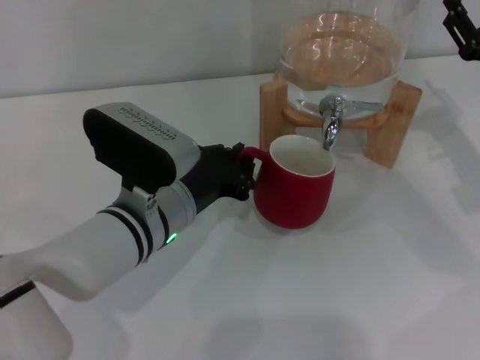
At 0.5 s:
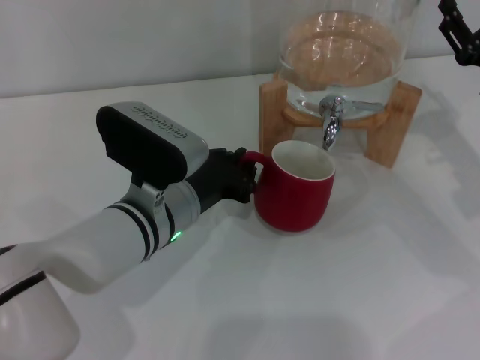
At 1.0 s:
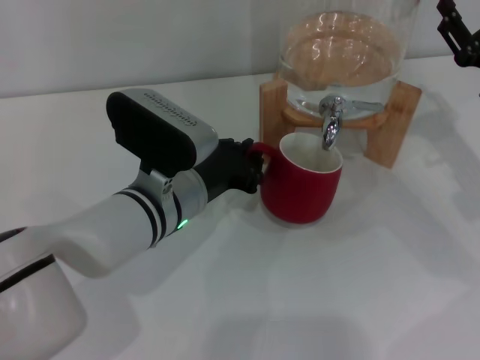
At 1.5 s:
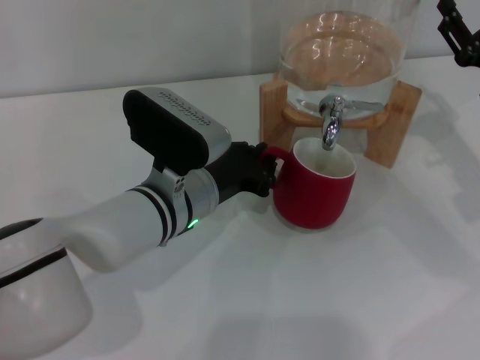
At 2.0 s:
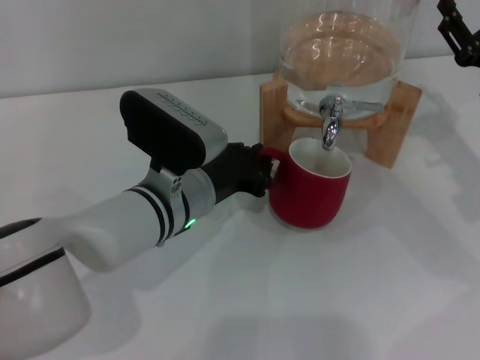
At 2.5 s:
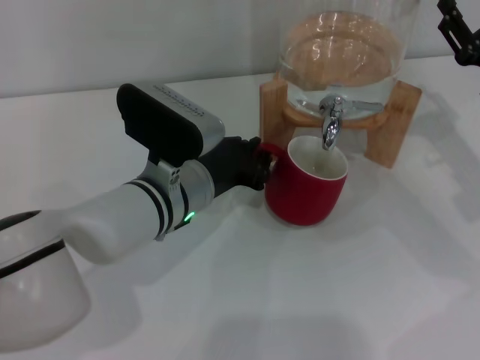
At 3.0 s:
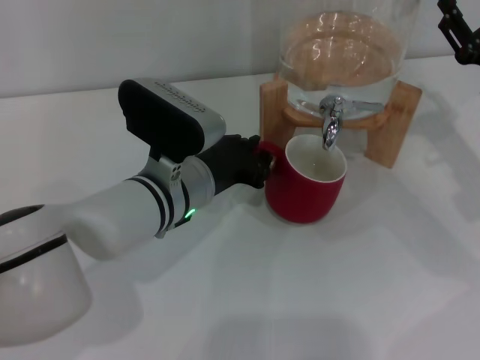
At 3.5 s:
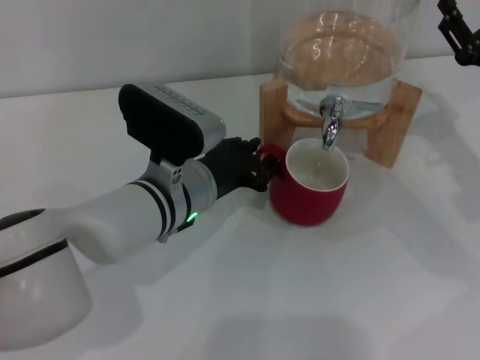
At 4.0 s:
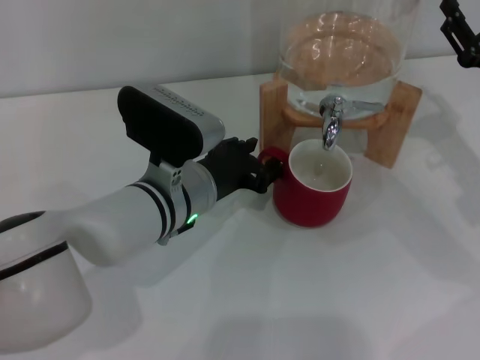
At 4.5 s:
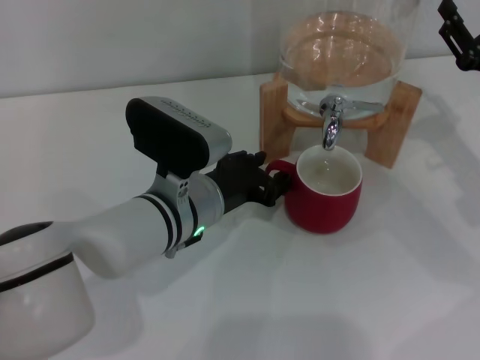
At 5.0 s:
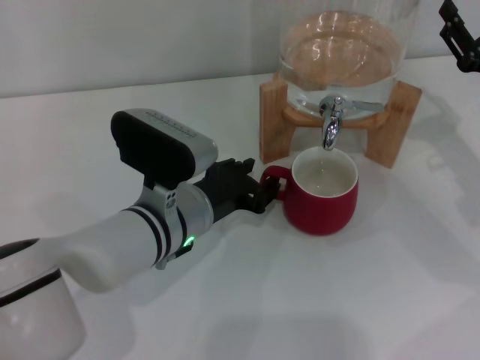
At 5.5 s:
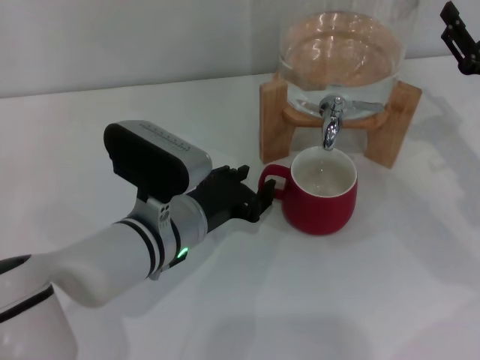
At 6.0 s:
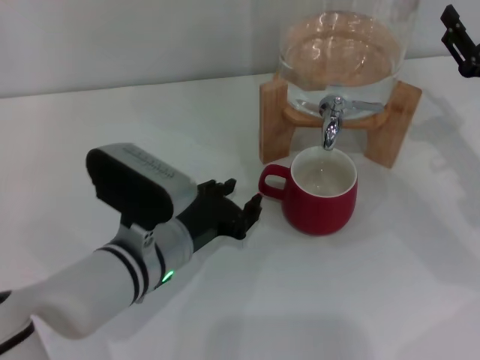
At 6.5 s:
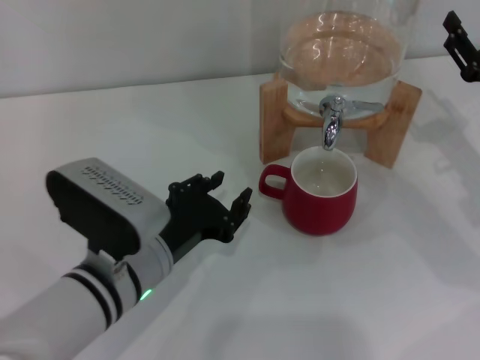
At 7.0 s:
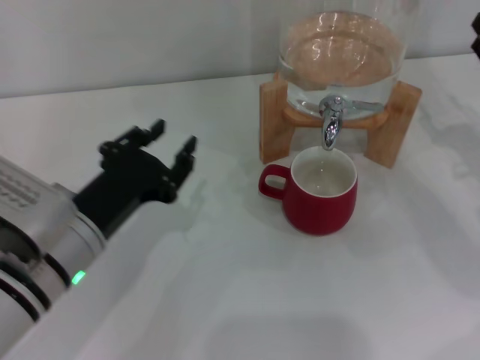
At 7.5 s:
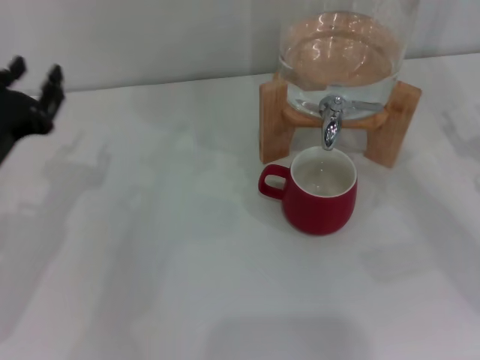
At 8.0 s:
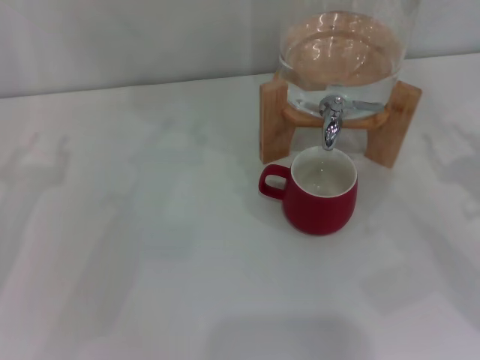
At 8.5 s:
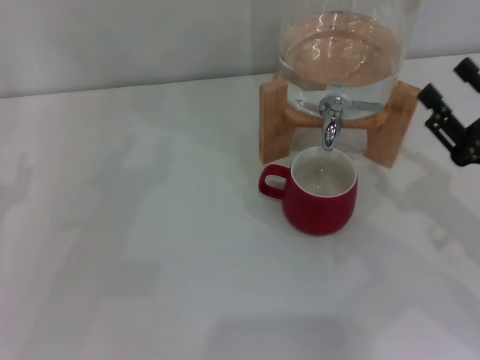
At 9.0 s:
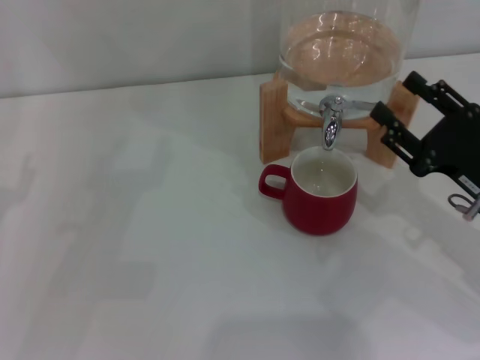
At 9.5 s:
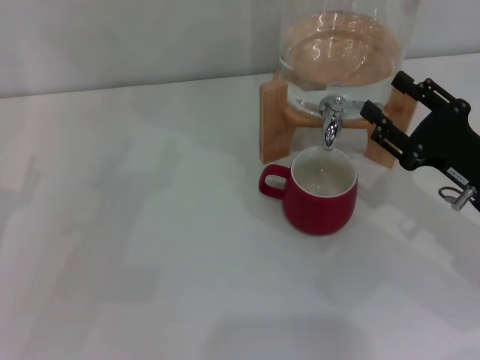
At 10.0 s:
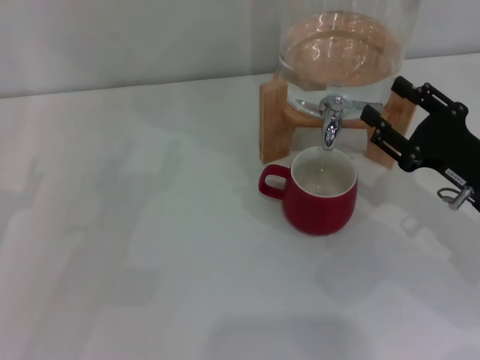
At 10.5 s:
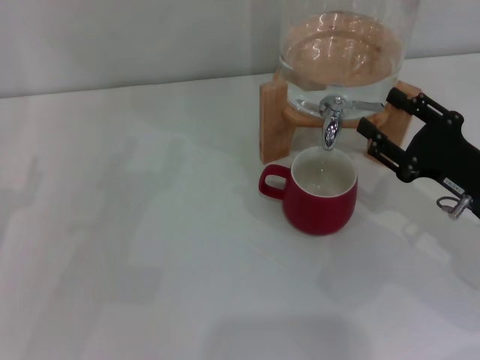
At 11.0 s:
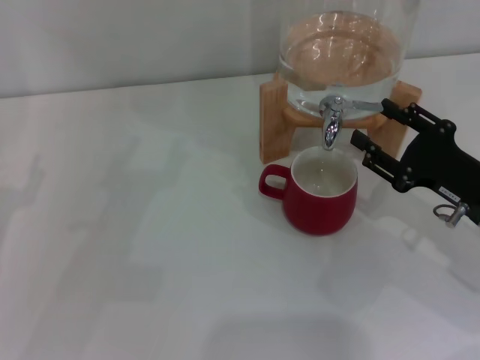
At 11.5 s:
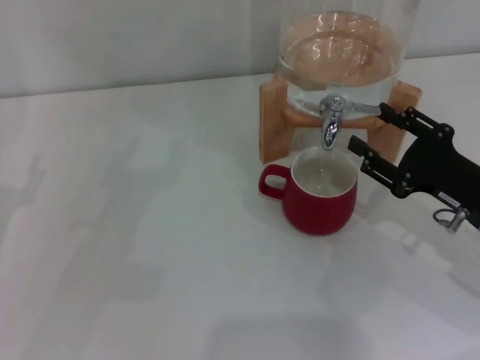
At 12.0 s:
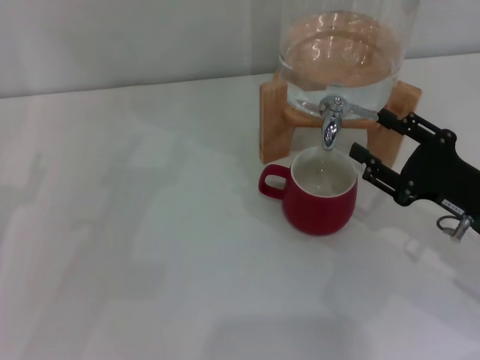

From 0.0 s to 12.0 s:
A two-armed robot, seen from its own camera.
Task of the whole recording: the left gripper pick up the red cup and place it horizontally under the faucet, the right gripper turn on the faucet to fill the cup, and then turn off the faucet.
Step, from 0.0 s to 6.5 s: Move the cup beneath the water dispenser nozzle with the left gripper.
From 0.0 s to 2.0 s: There are only small adjustments of the grippers.
From 2.0 s to 4.0 s: The left gripper opens its fingers.
From 4.0 s to 6.0 s: The left gripper shifts by some 5 cm.
From 6.0 s to 8.0 s: The left gripper travels to the left by about 20 cm, while the right gripper goes about 5 cm backward.
From 8.0 s to 10.0 s: The right gripper shifts approximately 5 cm to the left.
From 10.0 s to 12.0 s: The grippers make only small movements.

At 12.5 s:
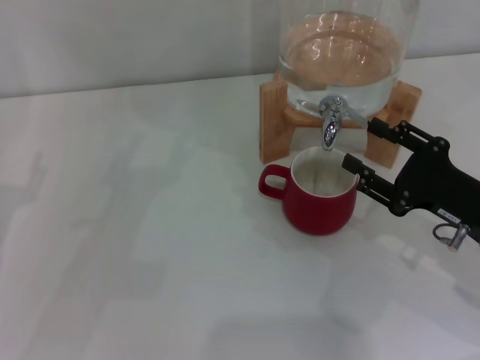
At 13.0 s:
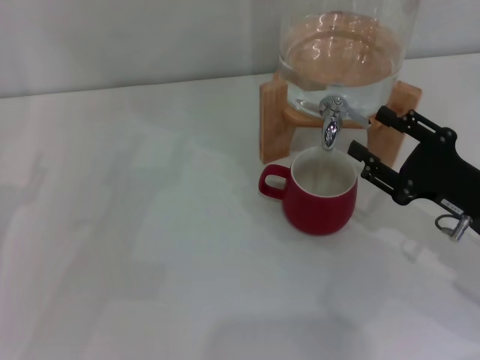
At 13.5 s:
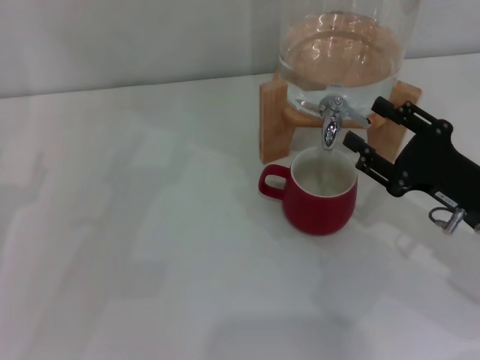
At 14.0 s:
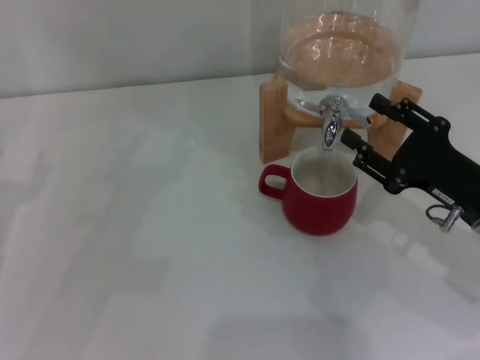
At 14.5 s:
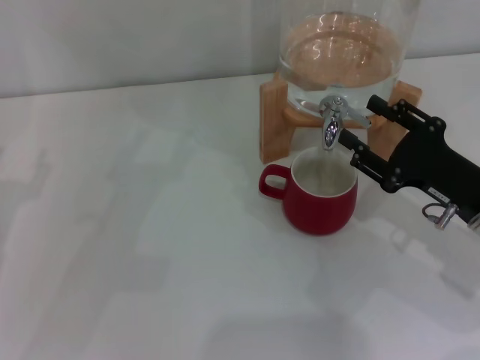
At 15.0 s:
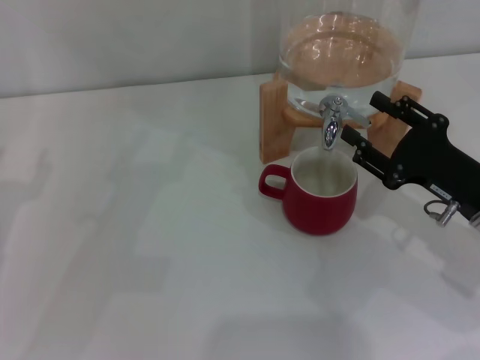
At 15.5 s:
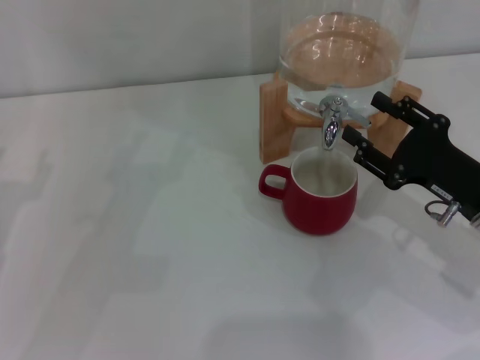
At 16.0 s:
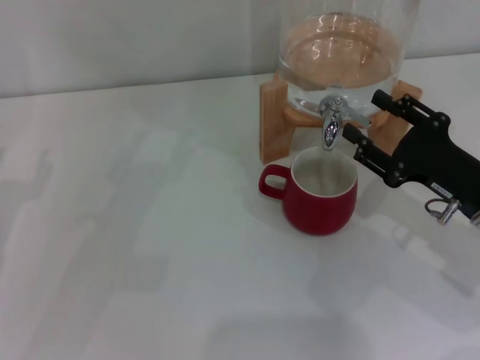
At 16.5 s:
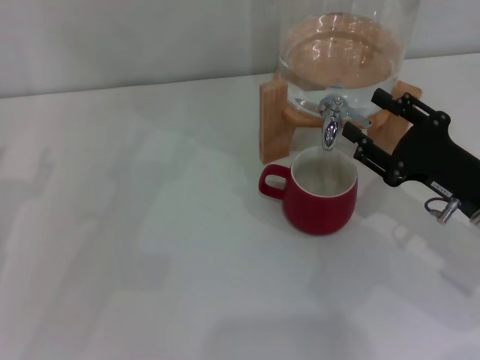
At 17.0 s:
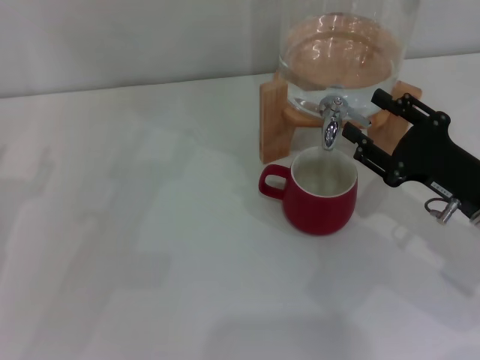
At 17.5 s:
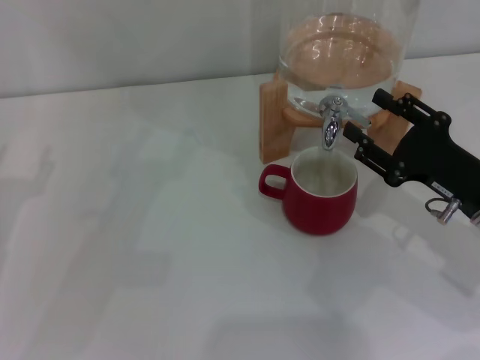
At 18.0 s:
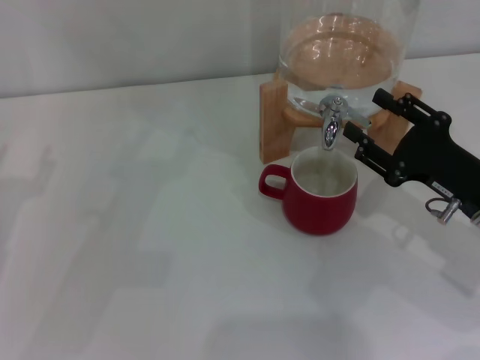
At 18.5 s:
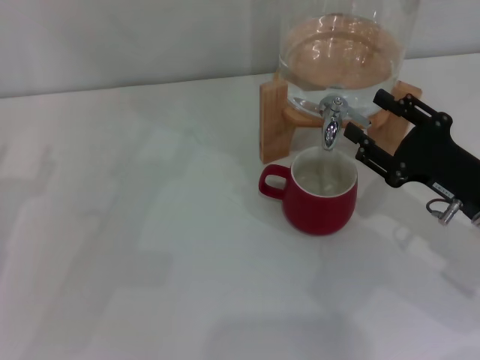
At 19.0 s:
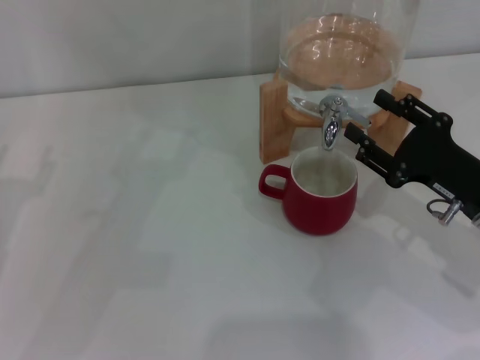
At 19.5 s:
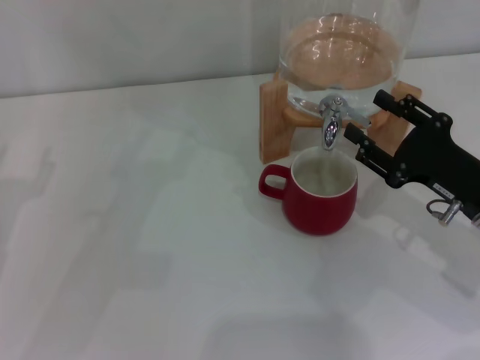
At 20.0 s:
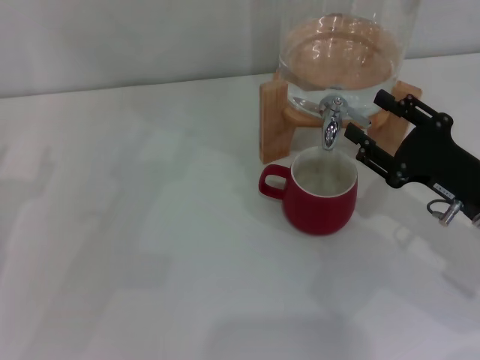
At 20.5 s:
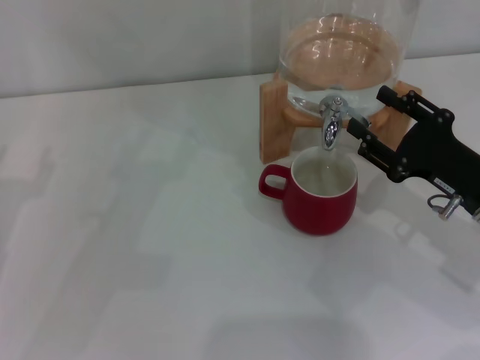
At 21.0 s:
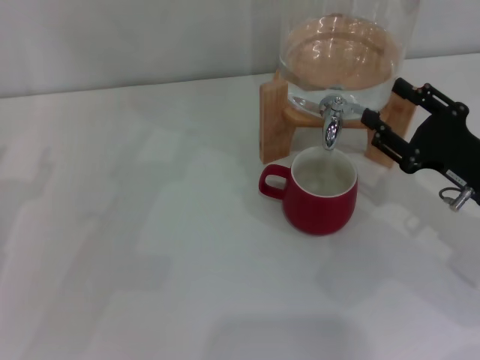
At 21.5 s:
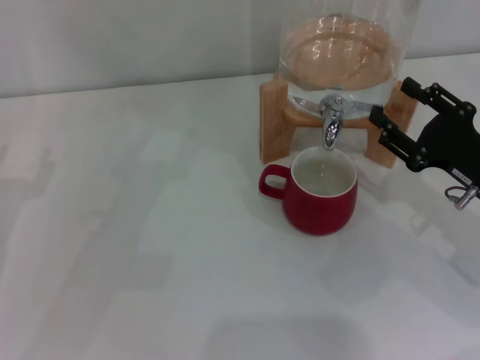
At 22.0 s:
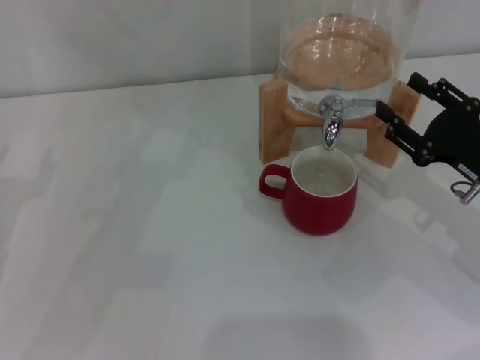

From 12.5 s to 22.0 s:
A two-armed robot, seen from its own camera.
Task of the whole recording: the left gripper pick up the red cup and place it horizontally under the faucet, the right gripper turn on the faucet to fill the cup, and then turn off the faucet.
Step, from 12.5 s to 20.0 s: Open the dispenser valve and fill the cup with water with the right gripper.
From 12.5 s to 14.5 s: There are only small adjustments of the grippers.
From 14.5 s to 20.0 s: The two grippers keep their place.
From 20.0 s to 22.0 s: The grippers stay close to where they were, moving slightly.

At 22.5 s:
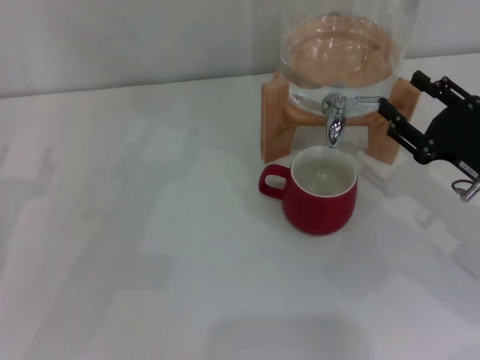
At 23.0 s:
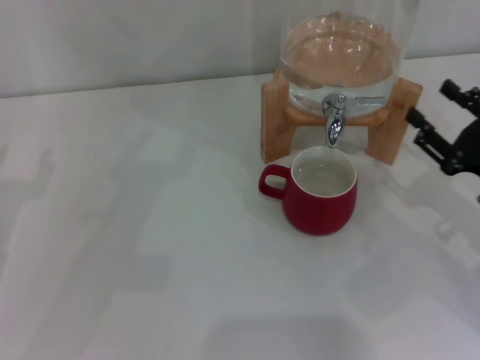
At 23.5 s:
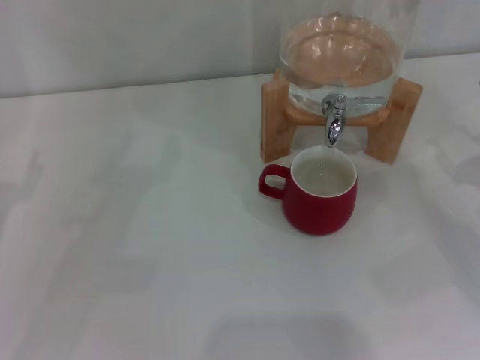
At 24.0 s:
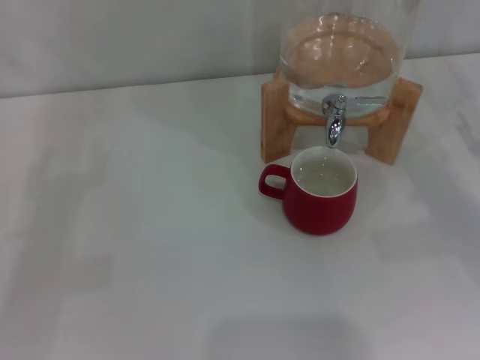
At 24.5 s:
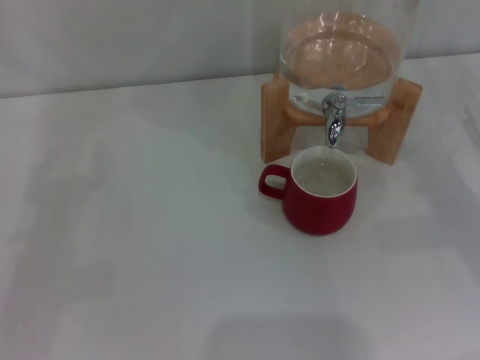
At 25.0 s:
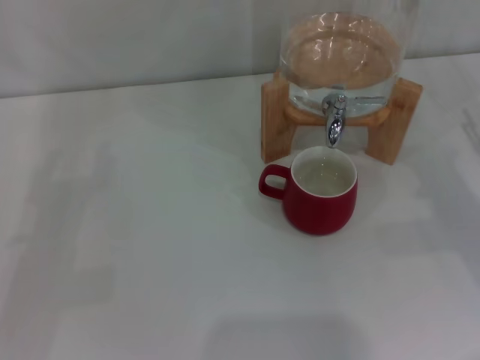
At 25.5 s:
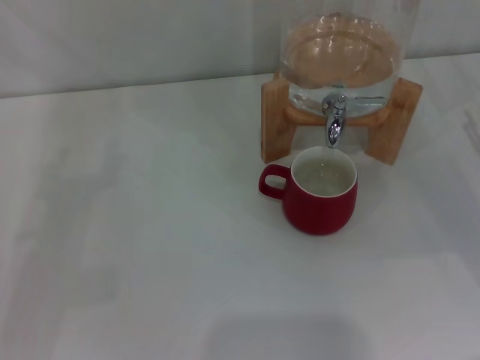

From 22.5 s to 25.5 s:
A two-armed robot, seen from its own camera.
Task of the whole recording: the left gripper pick up the red cup and place it horizontally under the faucet, the right gripper turn on the faucet to fill the cup, and then turn off the faucet.
From 22.5 s to 24.0 s: The right gripper goes some 5 cm to the right.
